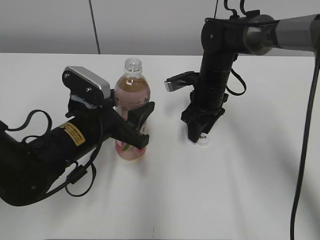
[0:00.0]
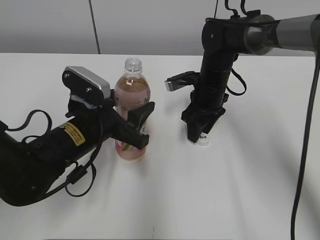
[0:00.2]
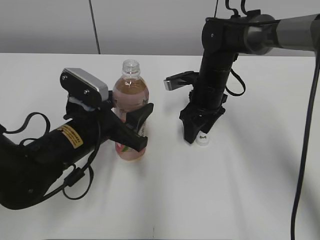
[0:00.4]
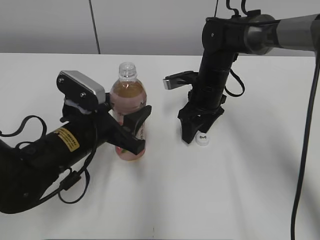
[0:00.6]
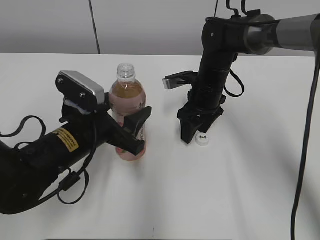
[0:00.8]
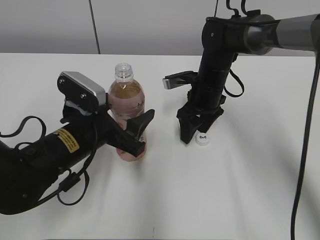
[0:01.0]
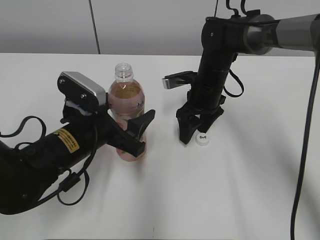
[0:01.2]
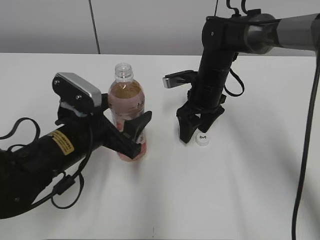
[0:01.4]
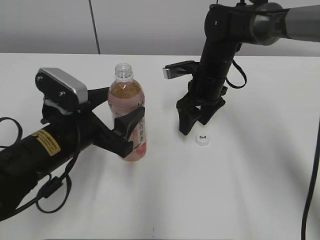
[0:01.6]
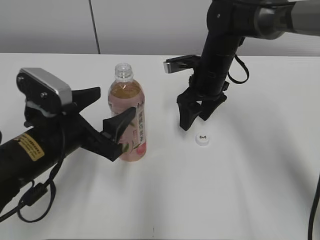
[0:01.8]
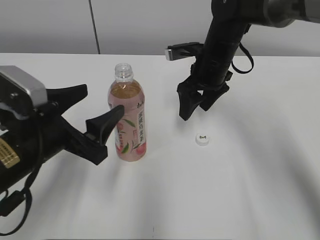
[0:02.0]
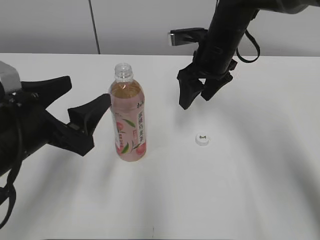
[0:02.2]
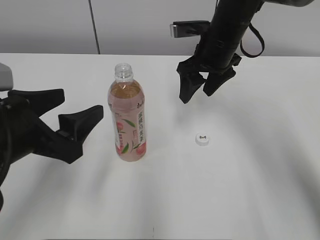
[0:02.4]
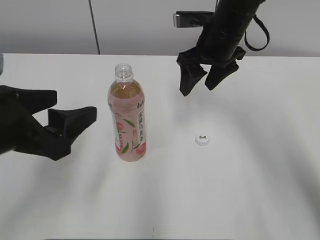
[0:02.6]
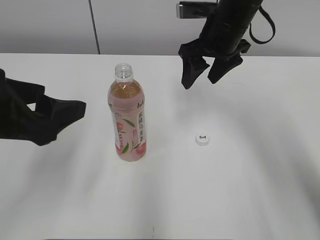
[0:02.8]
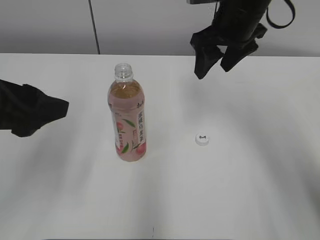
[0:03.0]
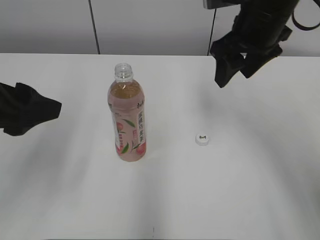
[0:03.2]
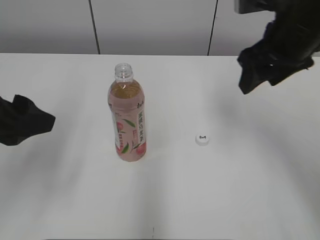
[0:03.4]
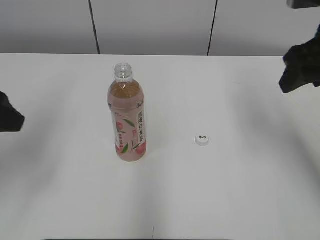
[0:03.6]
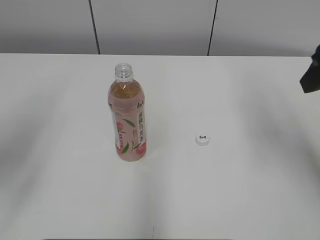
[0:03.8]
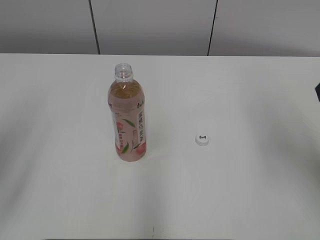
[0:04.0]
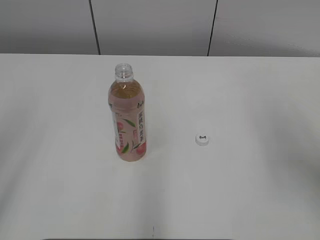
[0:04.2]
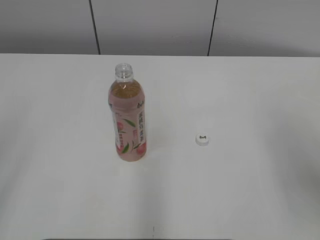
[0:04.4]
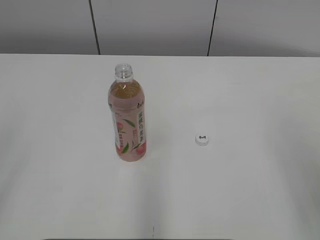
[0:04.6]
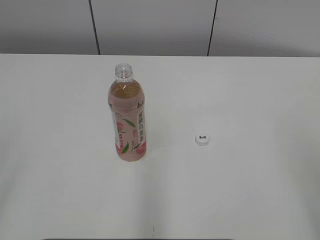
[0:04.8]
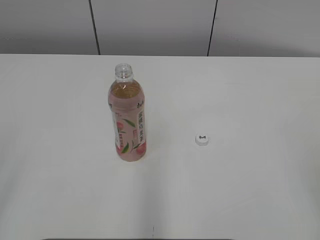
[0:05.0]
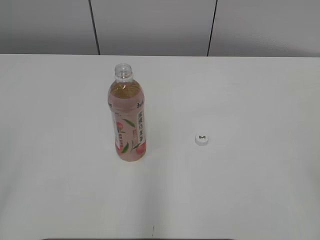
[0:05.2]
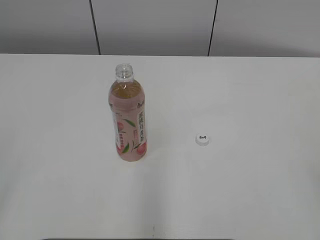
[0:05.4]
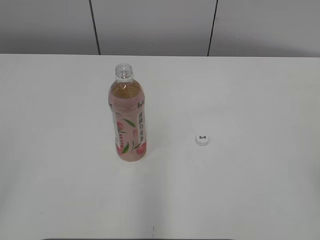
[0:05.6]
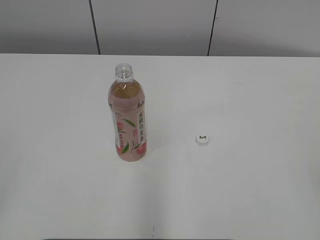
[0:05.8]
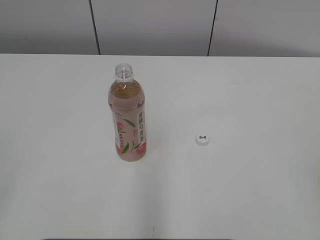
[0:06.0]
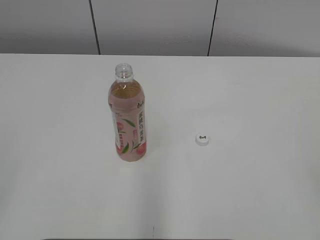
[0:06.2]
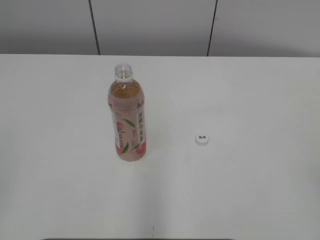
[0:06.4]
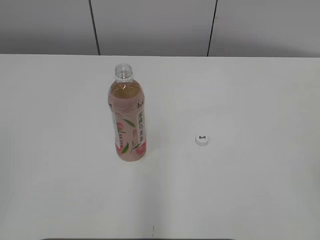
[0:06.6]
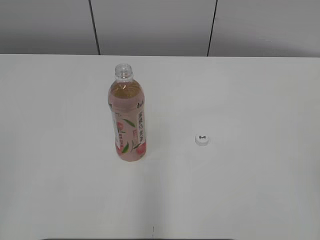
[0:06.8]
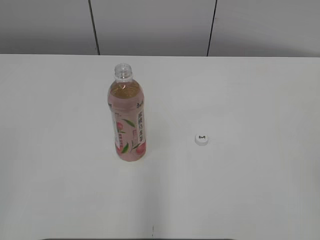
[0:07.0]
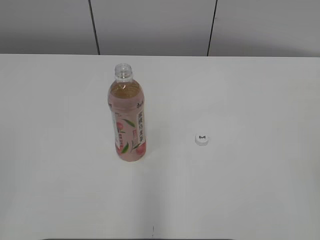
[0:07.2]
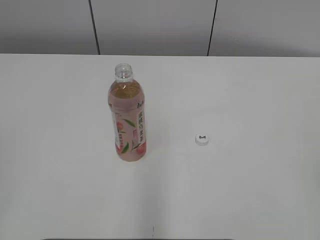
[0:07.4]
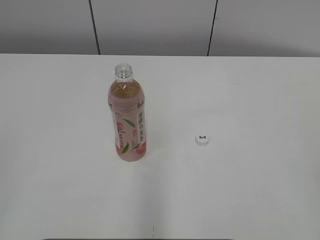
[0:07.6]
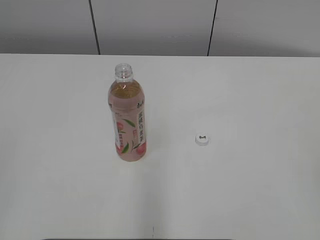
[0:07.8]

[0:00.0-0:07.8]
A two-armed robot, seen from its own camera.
Step, 0:00.6 to 0:01.4: Place the Peach Oolong Tea with the left hand.
0:00.0 to 0:01.6: The left gripper opens up. The right gripper opens its fingers.
0:01.6 to 0:03.2: The right gripper heads upward, covering about 15 cm, while the left gripper is displaced upward and to the left by roughly 15 cm.
0:03.2 to 0:04.6: The left gripper travels backward and to the left by about 15 cm; the right gripper travels backward and to the right by roughly 30 cm.
